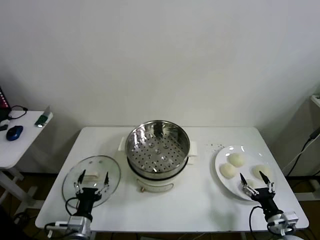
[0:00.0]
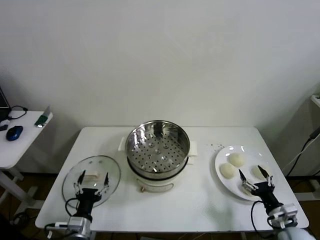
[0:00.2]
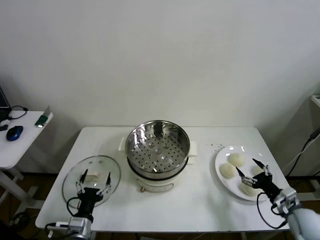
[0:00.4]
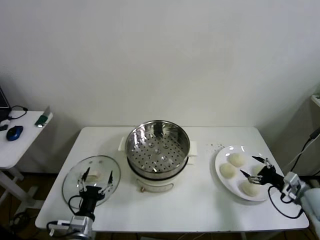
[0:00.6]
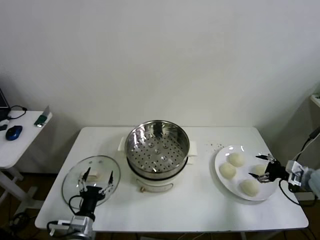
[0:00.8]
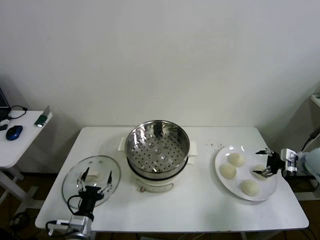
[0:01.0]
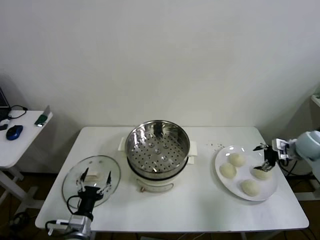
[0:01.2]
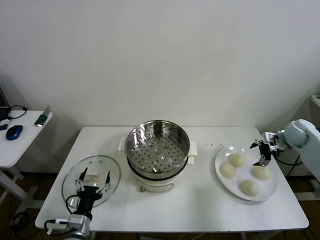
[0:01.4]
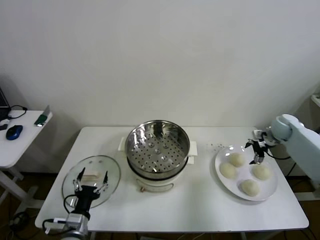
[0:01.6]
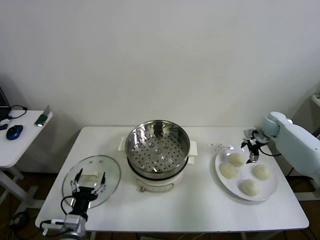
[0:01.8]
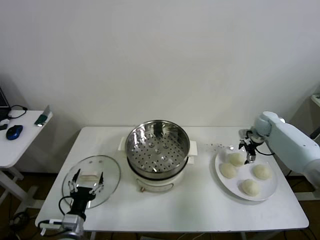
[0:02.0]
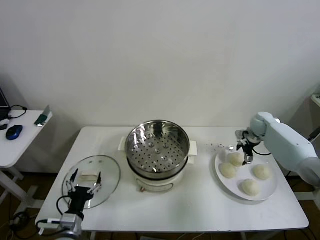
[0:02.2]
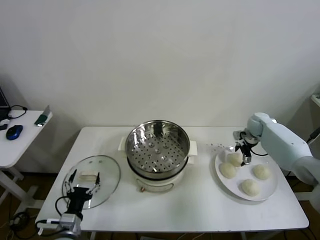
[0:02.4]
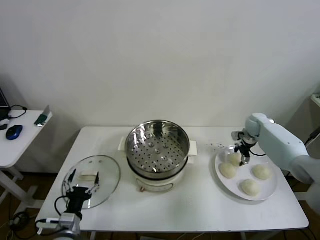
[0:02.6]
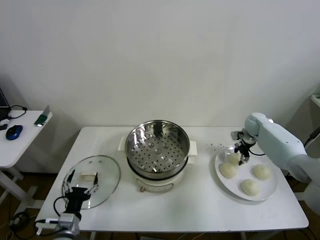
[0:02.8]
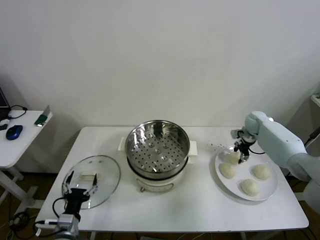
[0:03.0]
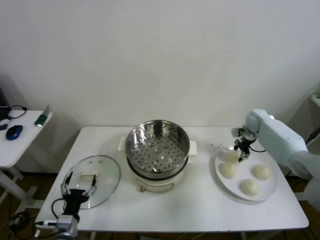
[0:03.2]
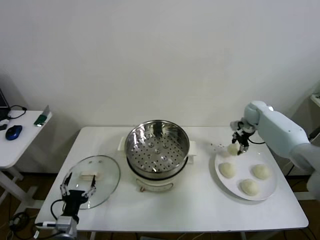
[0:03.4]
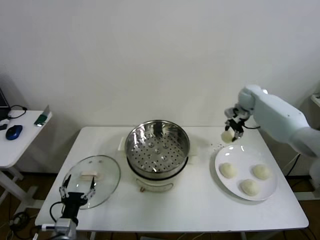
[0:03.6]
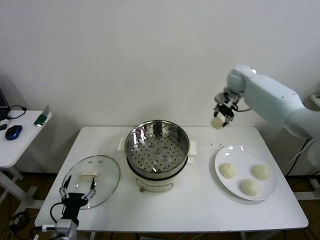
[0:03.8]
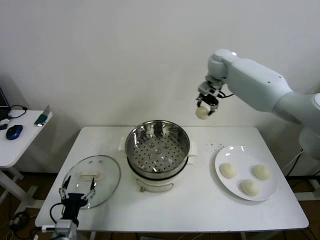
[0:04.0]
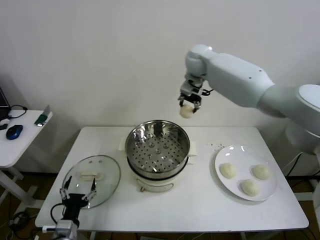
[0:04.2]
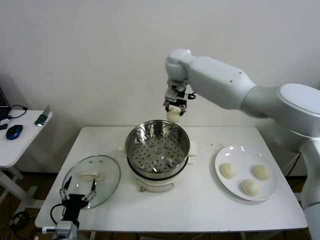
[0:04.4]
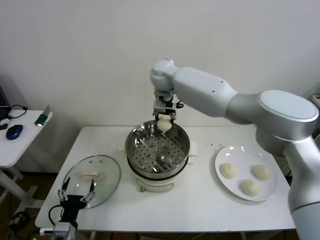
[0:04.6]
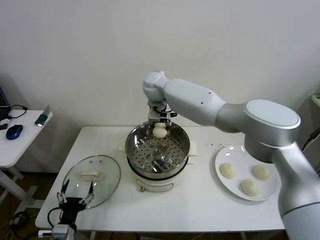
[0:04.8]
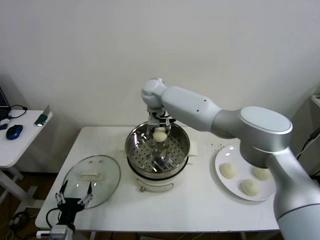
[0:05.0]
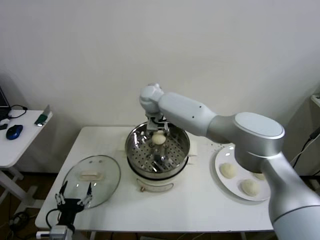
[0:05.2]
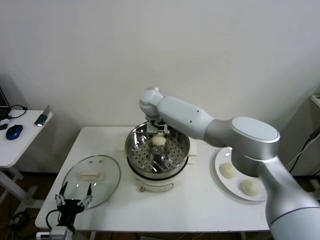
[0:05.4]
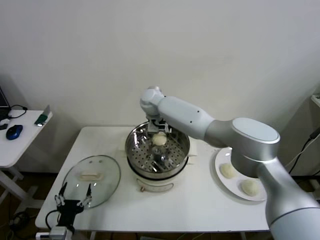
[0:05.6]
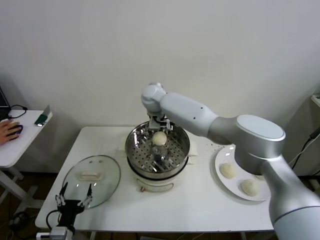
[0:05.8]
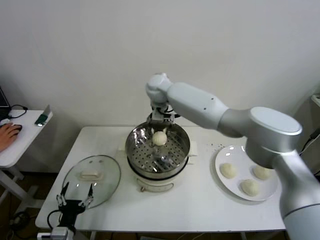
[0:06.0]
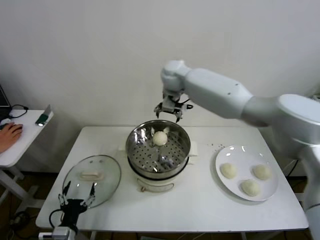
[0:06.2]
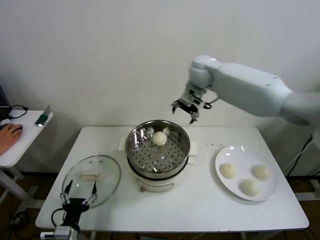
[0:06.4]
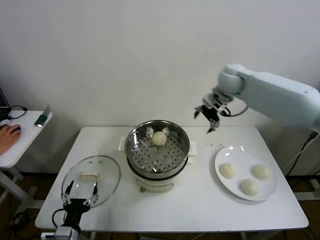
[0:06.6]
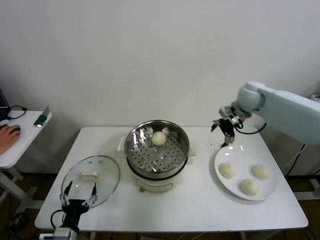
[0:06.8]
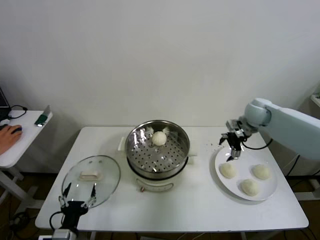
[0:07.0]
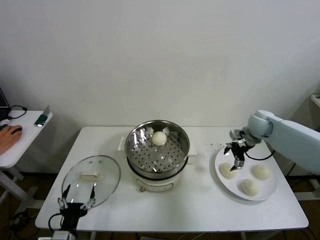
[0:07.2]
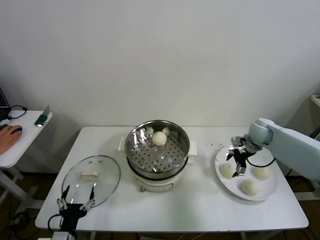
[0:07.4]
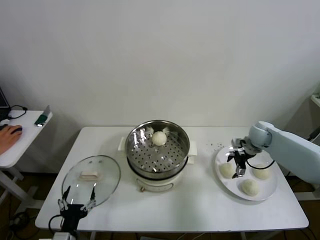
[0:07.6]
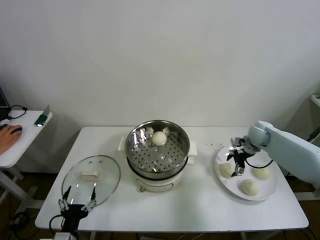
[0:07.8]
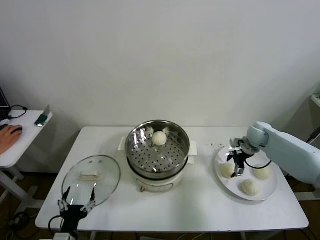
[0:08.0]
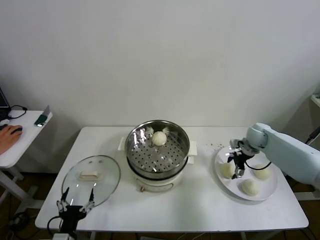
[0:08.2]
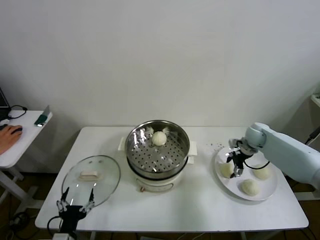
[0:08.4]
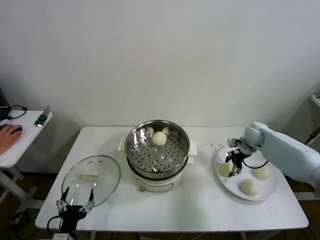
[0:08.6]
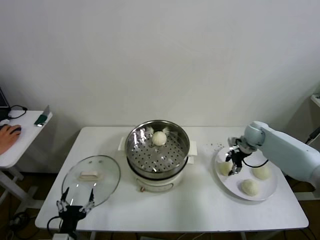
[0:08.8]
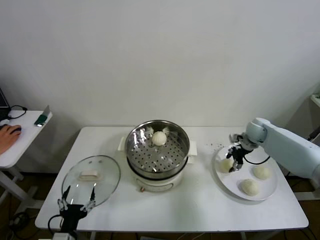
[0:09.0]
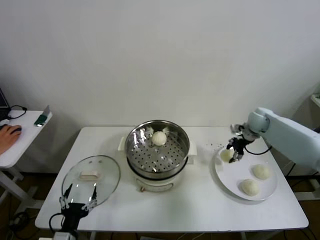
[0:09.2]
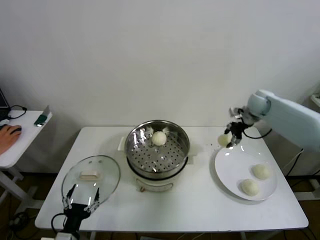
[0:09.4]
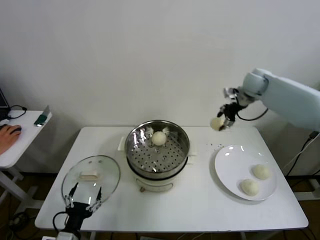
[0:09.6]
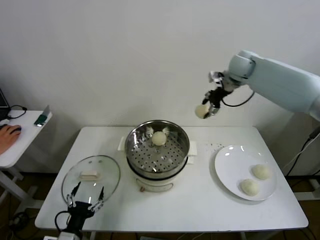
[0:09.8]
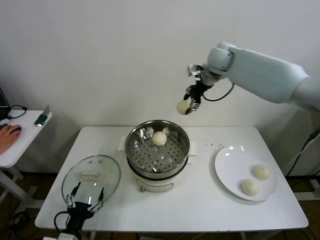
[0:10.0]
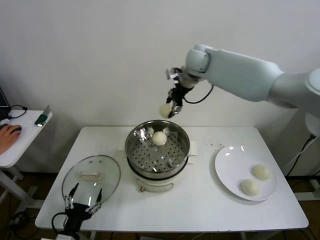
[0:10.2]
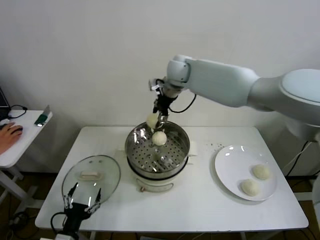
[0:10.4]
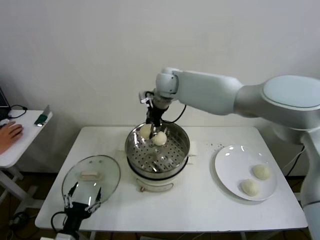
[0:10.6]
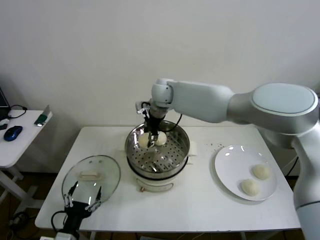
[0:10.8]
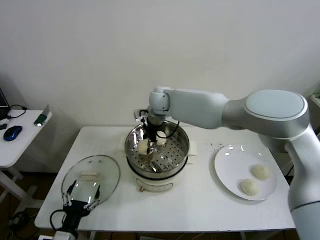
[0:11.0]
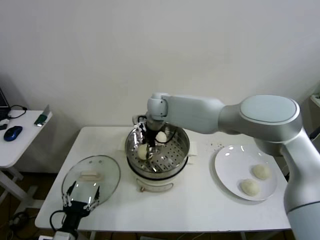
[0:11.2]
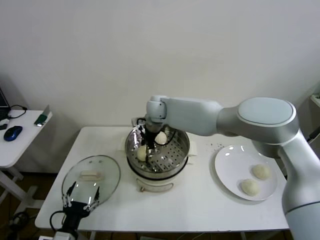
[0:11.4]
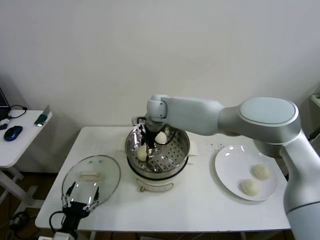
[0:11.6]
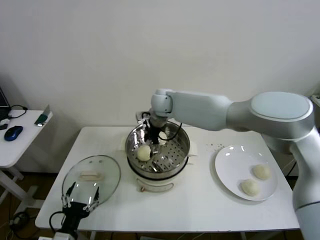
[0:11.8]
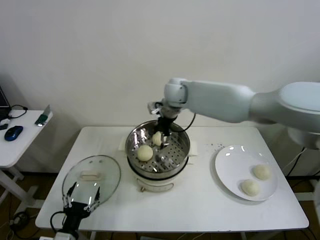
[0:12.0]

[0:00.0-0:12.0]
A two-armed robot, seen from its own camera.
Step, 0:00.0 to 0:02.6: Grasp the baozi in the plate with right gripper.
Step, 0:02.8 to 0:05.8: Place the baozi on the steamer with right gripper.
Step, 0:06.0 to 0:08.6: Grasp the baozi in the plate with right gripper.
Step, 0:08.8 to 0:11.6: Place the baozi on the steamer with right gripper.
0:01.6 to 0:03.0: The right gripper is displaced to the left and forward by some 10 cm, and closes.
0:03.0 to 0:04.4: The right gripper goes some 40 cm to the left and upward.
0:04.4 to 0:06.0: The right gripper moves downward and to the left, about 10 cm, and opens up.
0:06.0 to 0:07.6: The right gripper heads to the right and downward, covering approximately 40 cm.
0:07.6 to 0:09.0: The right gripper closes up.
0:09.0 to 0:10.4: The right gripper travels to the left and upward by approximately 40 cm.
0:10.4 to 0:12.0: The right gripper goes roughly 5 cm downward, and opens.

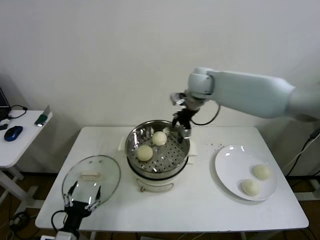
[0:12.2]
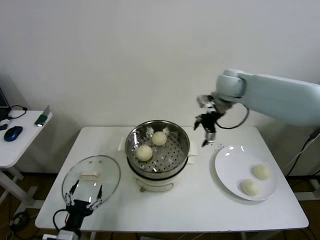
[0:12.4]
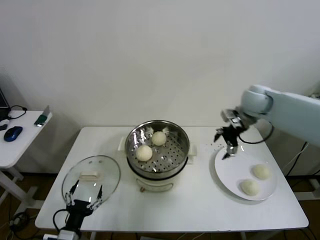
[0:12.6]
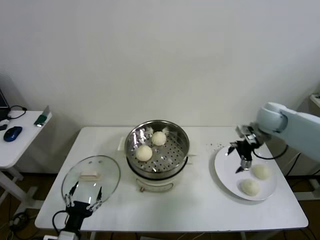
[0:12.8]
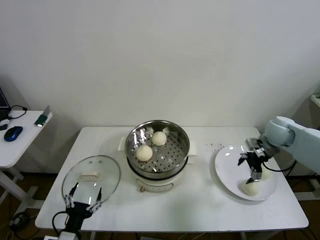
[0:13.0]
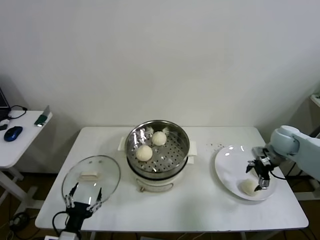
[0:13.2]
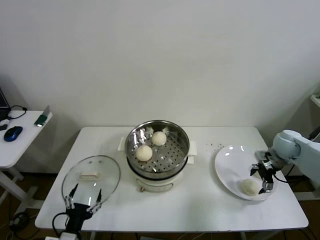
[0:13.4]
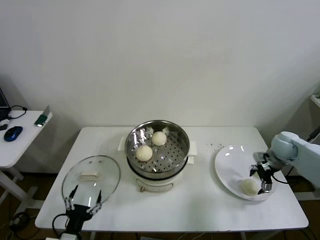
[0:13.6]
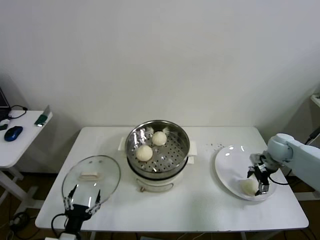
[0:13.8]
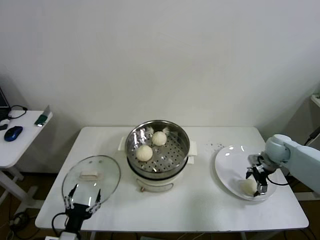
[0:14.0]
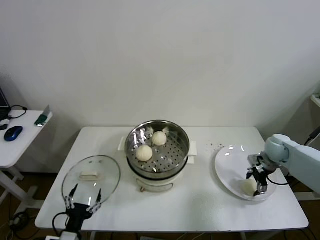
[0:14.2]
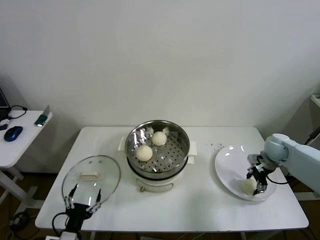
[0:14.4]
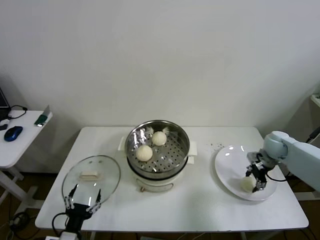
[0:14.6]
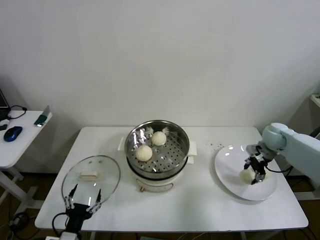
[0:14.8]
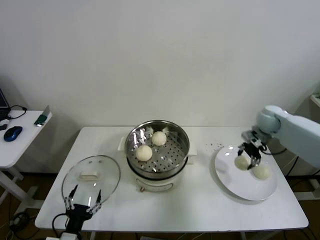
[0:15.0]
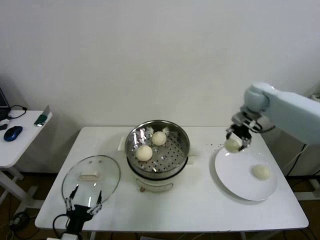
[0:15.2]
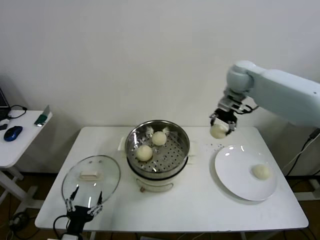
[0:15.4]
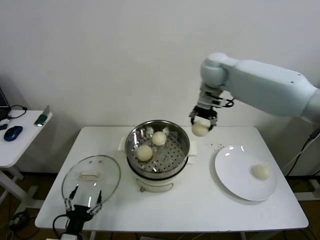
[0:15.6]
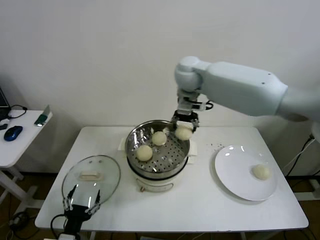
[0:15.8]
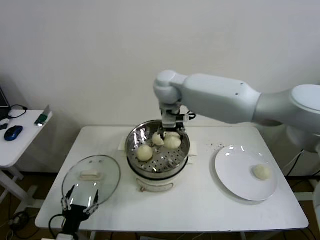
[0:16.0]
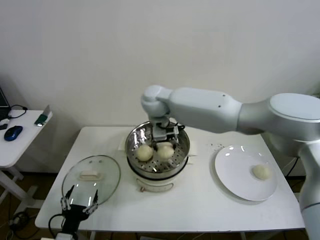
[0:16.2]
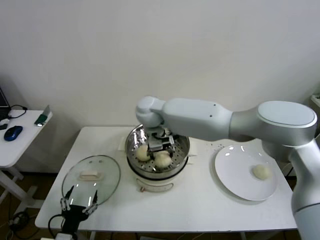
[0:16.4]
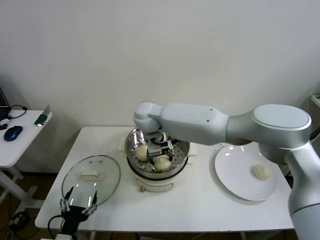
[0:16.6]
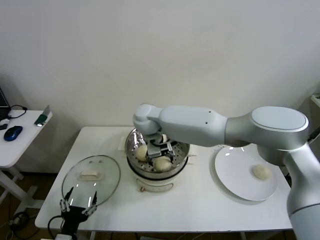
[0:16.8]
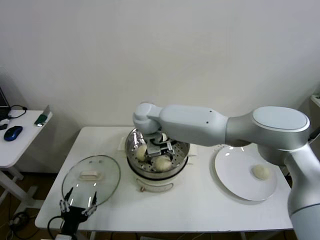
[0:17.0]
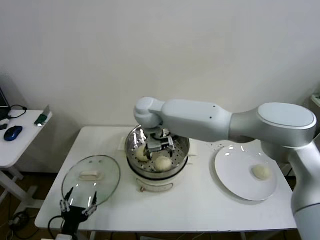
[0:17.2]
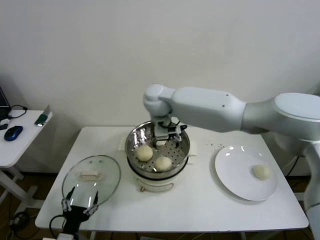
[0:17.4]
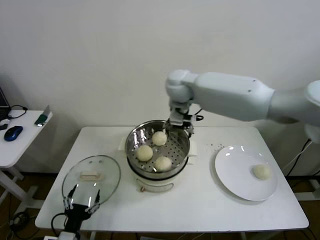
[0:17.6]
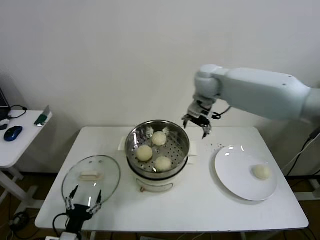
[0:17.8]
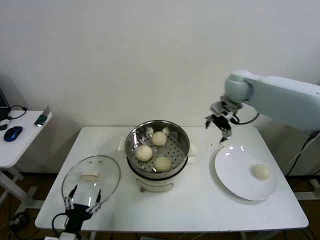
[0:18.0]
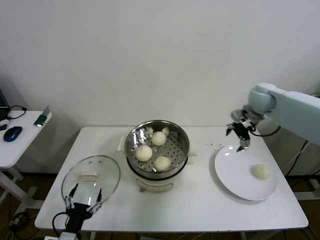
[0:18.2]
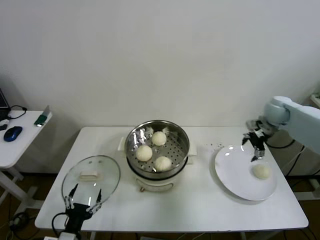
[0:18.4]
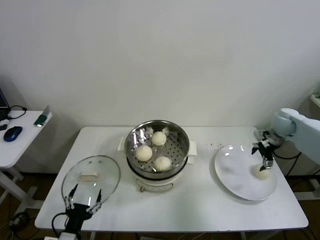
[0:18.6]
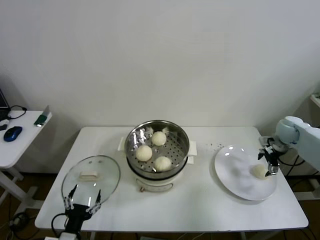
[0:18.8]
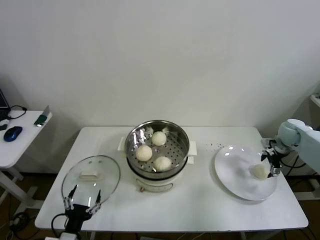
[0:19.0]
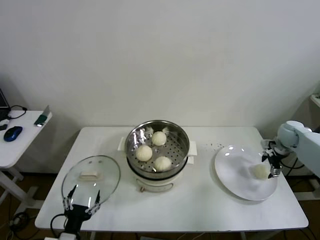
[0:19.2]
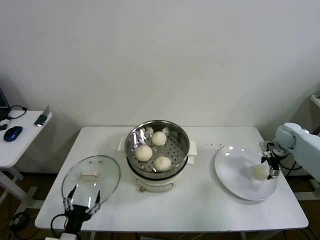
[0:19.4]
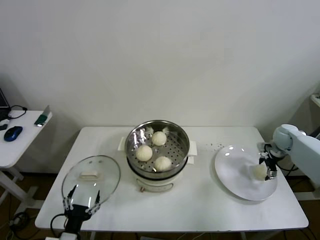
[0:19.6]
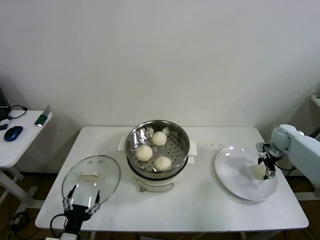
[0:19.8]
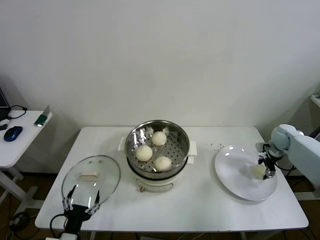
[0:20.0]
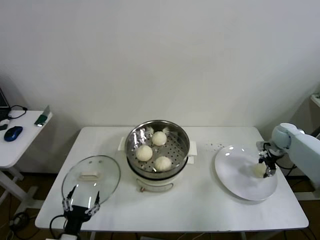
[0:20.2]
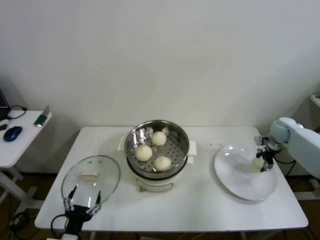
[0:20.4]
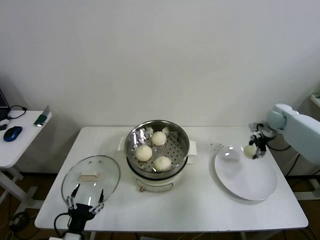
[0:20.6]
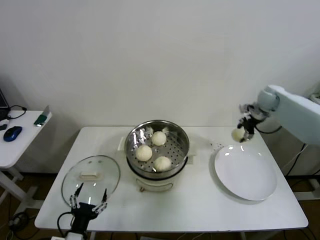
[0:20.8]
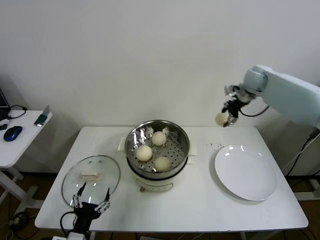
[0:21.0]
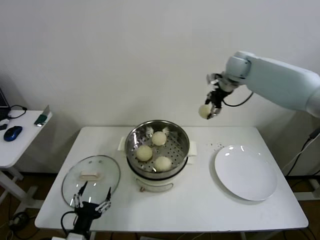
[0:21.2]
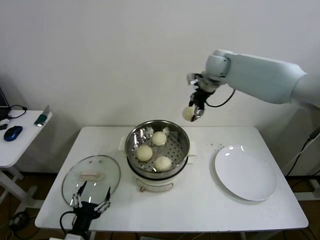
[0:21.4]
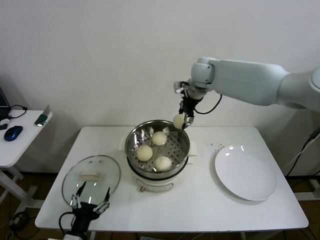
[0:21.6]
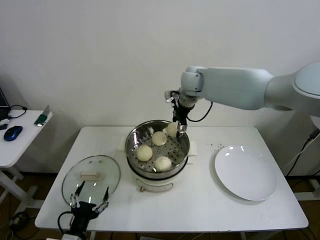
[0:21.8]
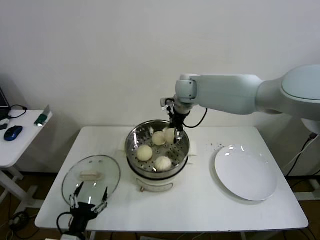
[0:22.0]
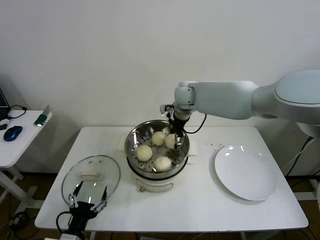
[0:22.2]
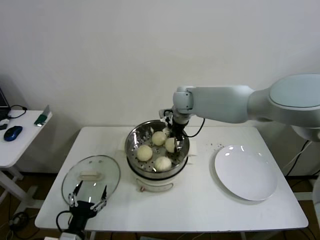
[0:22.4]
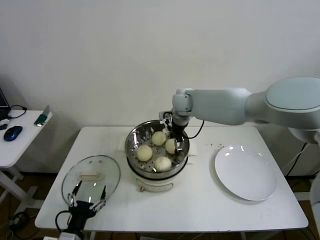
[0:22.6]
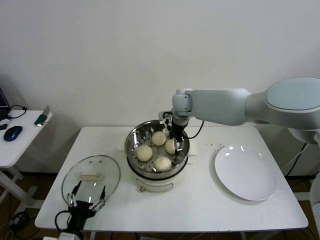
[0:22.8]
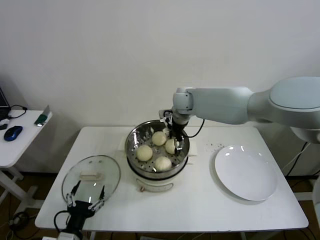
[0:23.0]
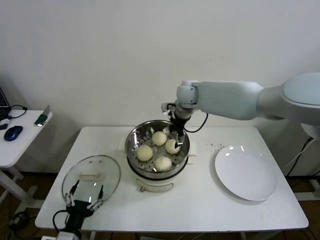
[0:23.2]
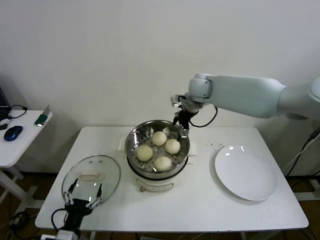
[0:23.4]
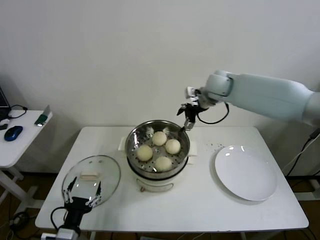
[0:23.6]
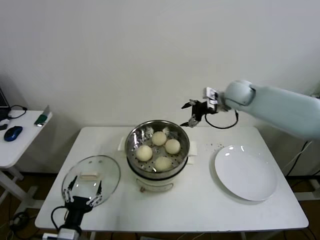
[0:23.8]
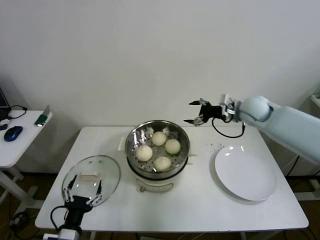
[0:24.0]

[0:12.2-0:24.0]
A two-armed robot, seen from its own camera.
Step, 0:12.2 to 0:14.2: Grasp the baozi in the plate with right gripper.
Step, 0:14.6 to 0:16.8: Place the baozi on the steamer with right gripper.
Step, 0:17.0 to 0:20.0: Grasp the baozi in the plate with right gripper.
Step, 0:20.2 to 0:23.0: Place the baozi on the steamer with right gripper.
0:12.2 to 0:13.6: The right gripper goes approximately 40 cm to the right and downward.
0:13.6 to 0:15.2: The right gripper goes some 20 cm upward, to the left and forward, and closes up.
0:15.2 to 0:16.6: The right gripper is displaced to the left by roughly 40 cm.
0:16.6 to 0:18.2: The right gripper moves to the right, approximately 40 cm, and opens up.
0:18.2 to 0:19.6: The right gripper shifts about 25 cm downward and to the right.
0:19.6 to 0:21.0: The right gripper travels upward, to the left and forward by some 25 cm, and closes.
0:21.0 to 0:22.6: The right gripper is displaced to the left by roughly 25 cm.
0:22.6 to 0:24.0: The right gripper shifts approximately 20 cm to the right, and opens its fingers.
